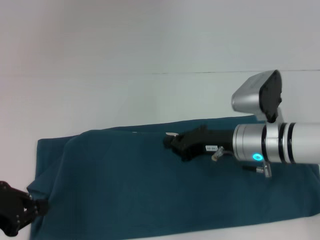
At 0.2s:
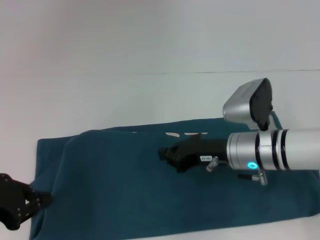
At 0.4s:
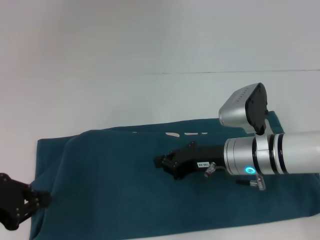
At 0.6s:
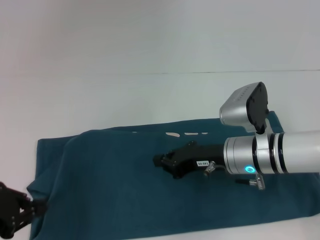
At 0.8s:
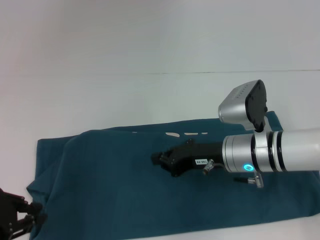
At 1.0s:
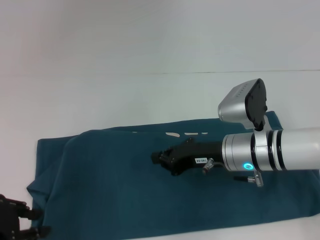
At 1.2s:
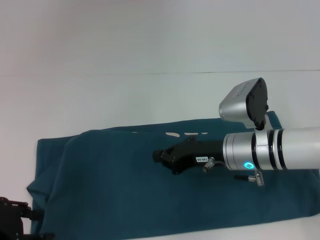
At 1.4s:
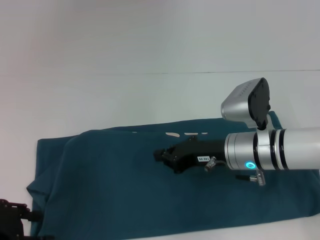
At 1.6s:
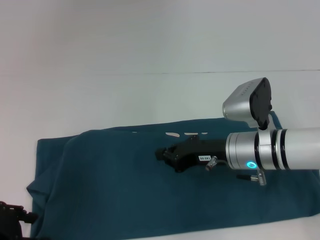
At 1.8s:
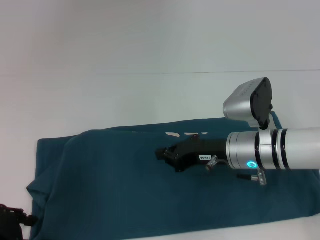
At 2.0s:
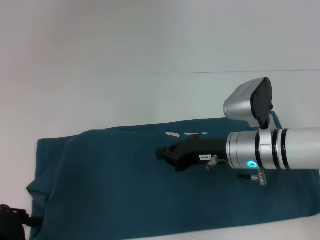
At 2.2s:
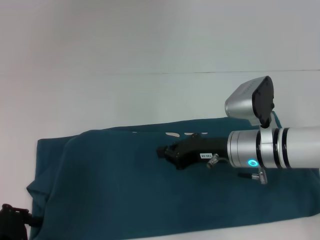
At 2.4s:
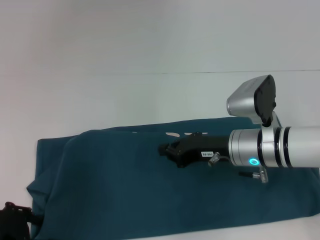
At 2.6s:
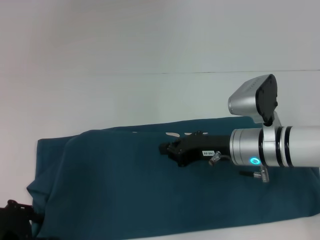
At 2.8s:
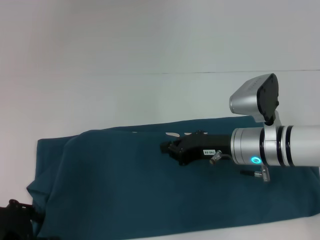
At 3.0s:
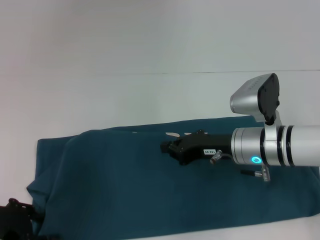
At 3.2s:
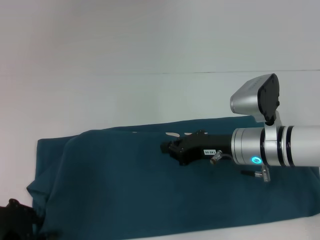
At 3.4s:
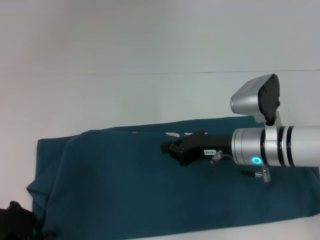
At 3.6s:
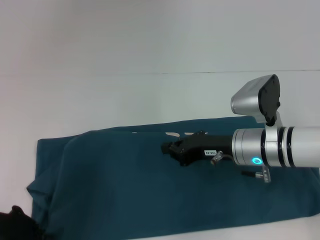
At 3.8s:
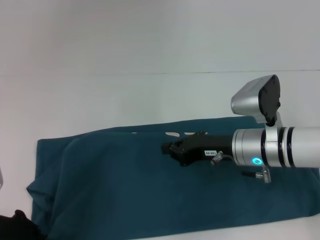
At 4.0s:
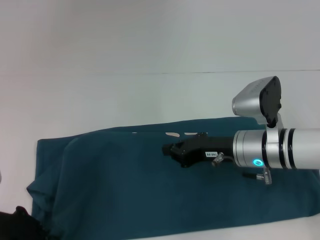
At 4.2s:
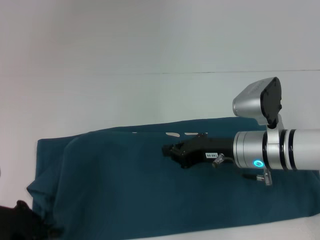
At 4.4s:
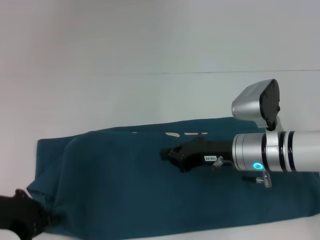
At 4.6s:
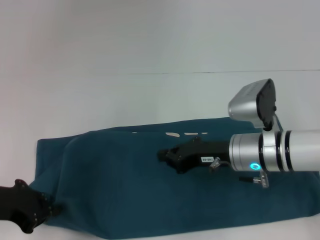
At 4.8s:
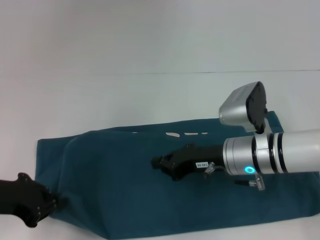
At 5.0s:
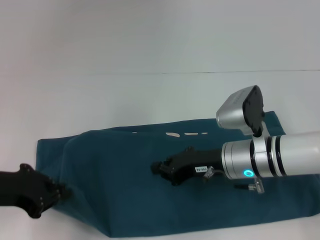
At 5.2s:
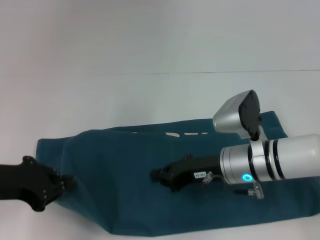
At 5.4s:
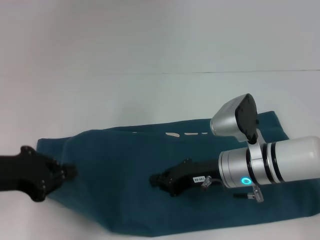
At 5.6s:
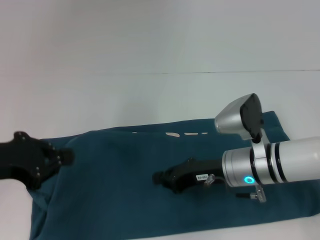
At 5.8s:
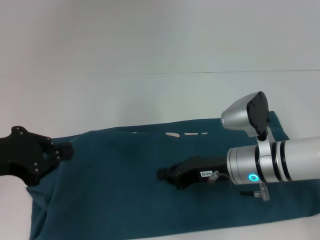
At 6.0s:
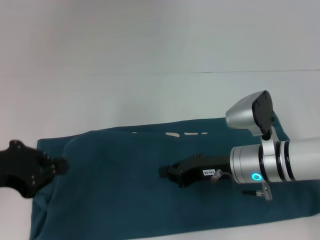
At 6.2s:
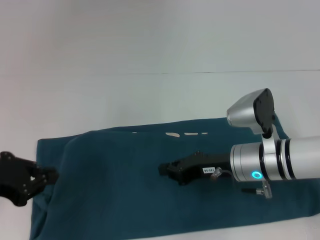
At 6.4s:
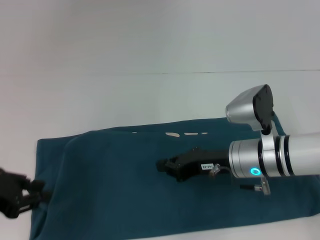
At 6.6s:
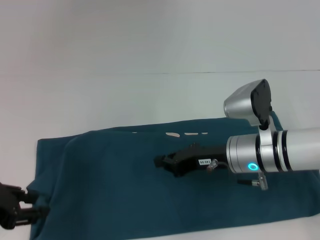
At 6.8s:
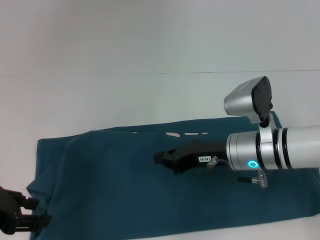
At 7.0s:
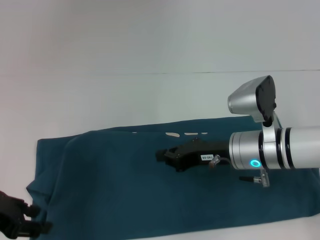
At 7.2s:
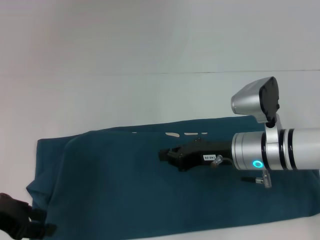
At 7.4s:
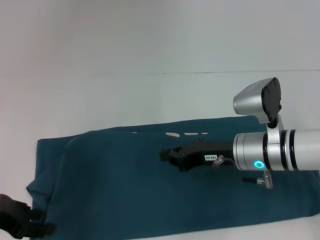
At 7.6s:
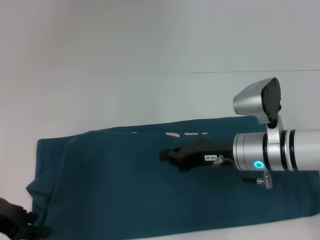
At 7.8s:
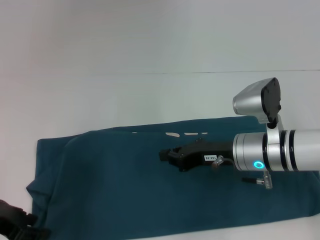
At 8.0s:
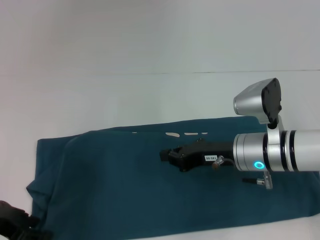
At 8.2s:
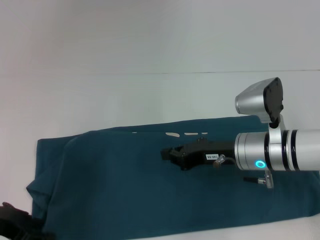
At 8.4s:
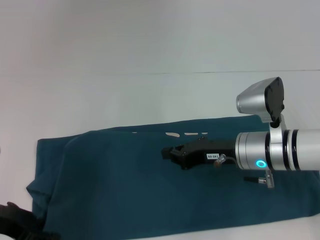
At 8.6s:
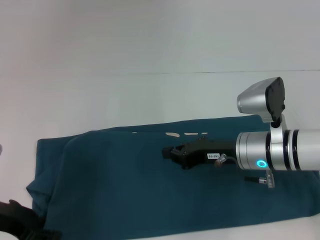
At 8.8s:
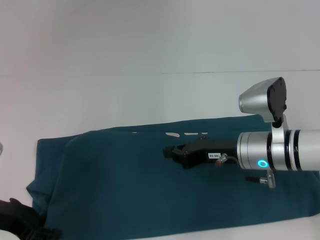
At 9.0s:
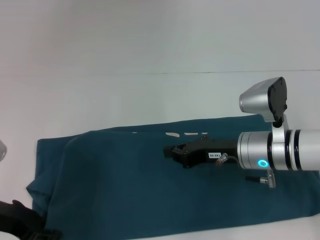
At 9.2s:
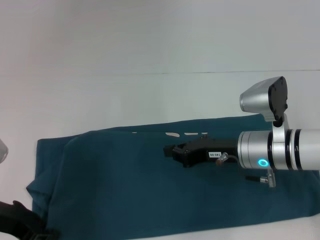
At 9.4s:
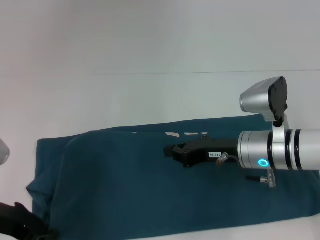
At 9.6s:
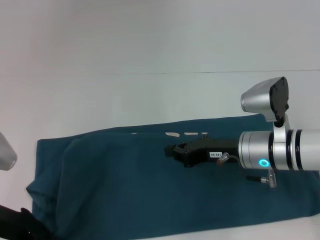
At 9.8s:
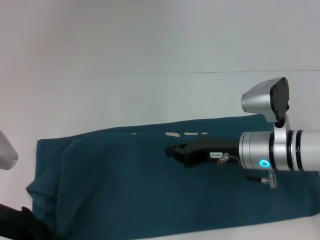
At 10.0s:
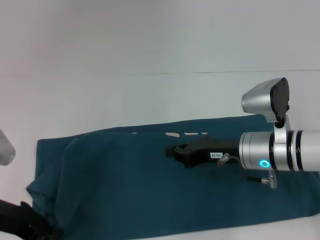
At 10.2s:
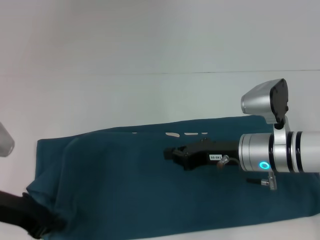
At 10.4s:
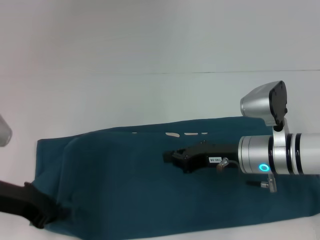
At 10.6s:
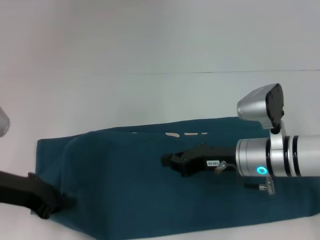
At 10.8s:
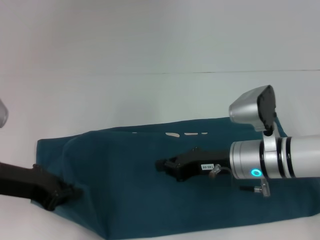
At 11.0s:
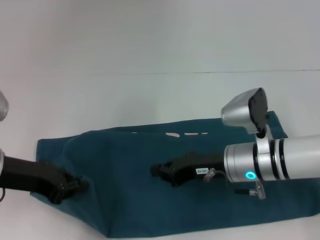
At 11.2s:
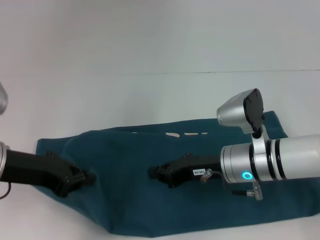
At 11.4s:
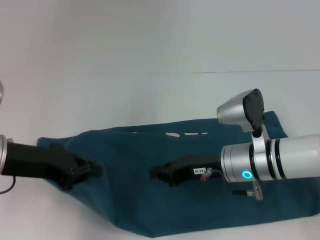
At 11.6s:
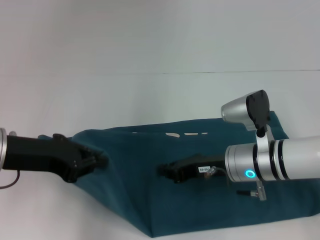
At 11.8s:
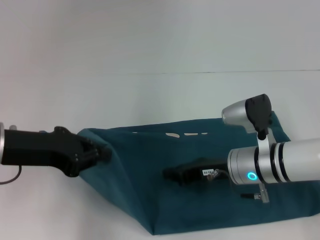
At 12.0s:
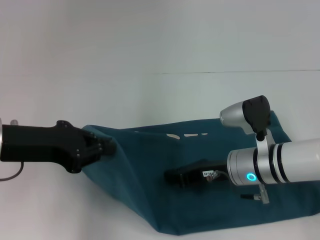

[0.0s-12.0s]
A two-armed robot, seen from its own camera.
0.0s to 1.6s: The left gripper opens its fingers.
1.6s to 3.0s: There are only small adjustments of the grippers.
3.0s to 4.4s: The left gripper closes up.
4.4s to 6.0s: The left gripper goes roughly 5 cm upward.
6.0s to 7.6s: The left gripper travels downward by roughly 5 cm, and opens its fingers.
7.6s to 9.0s: The grippers move only a little.
9.0s to 10.4s: The left gripper closes its fingers.
10.4s to 12.0s: The left gripper moves upward, roughly 5 cm.

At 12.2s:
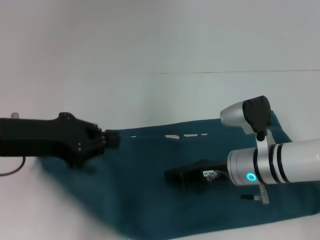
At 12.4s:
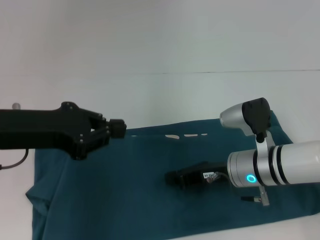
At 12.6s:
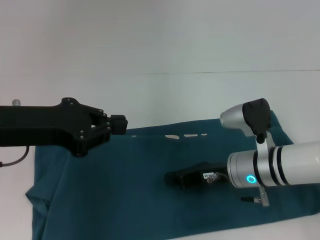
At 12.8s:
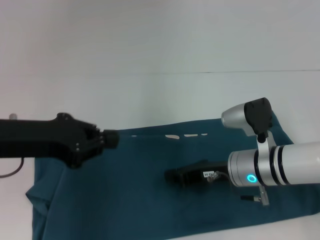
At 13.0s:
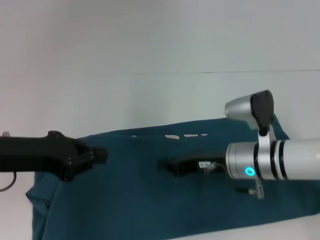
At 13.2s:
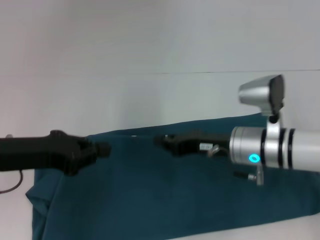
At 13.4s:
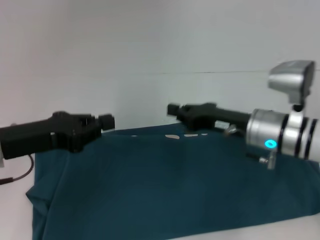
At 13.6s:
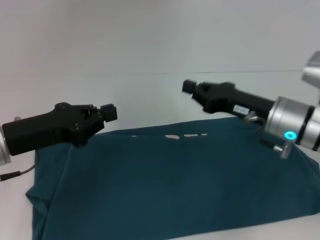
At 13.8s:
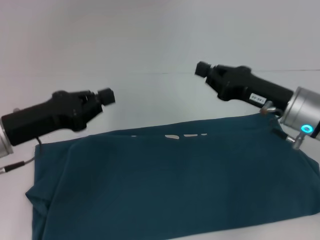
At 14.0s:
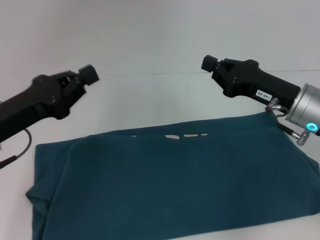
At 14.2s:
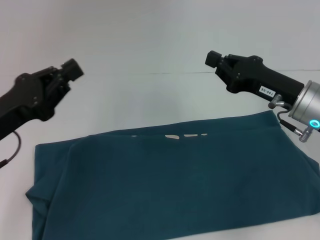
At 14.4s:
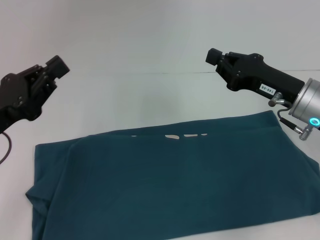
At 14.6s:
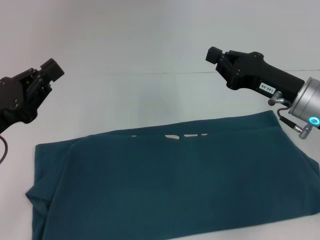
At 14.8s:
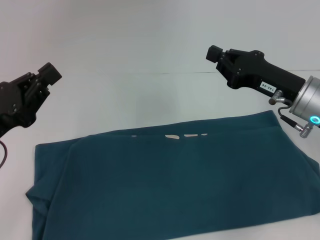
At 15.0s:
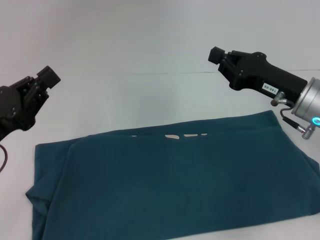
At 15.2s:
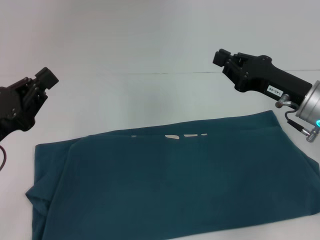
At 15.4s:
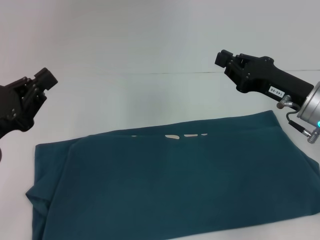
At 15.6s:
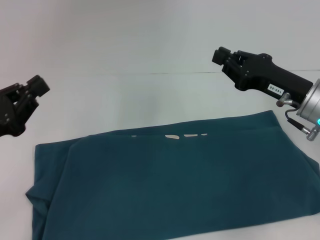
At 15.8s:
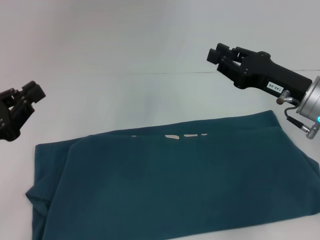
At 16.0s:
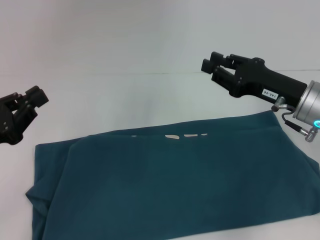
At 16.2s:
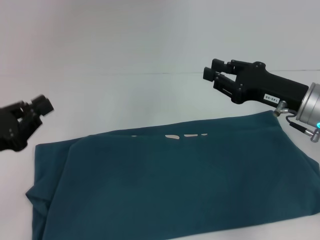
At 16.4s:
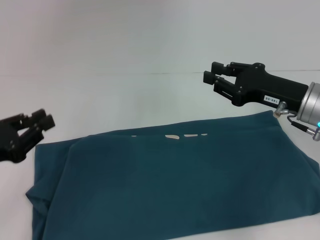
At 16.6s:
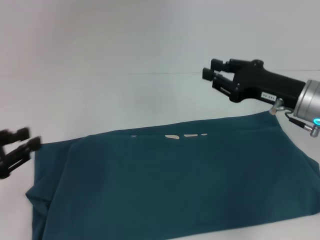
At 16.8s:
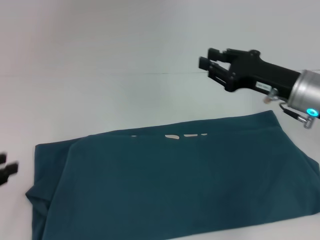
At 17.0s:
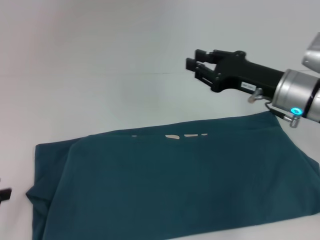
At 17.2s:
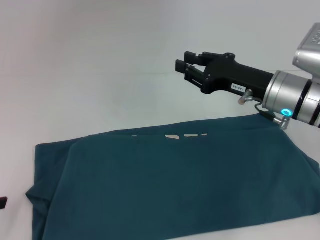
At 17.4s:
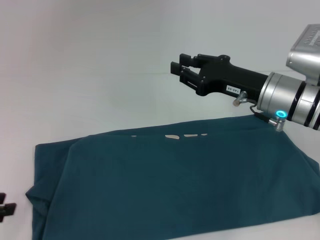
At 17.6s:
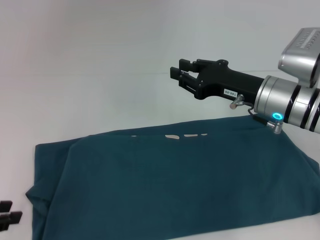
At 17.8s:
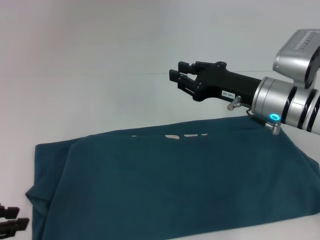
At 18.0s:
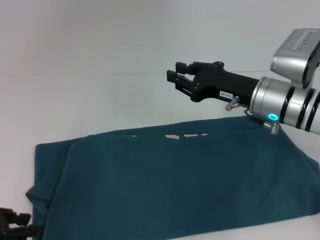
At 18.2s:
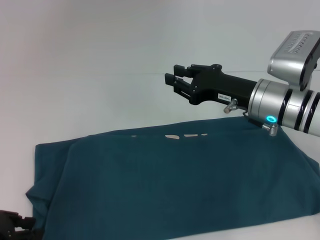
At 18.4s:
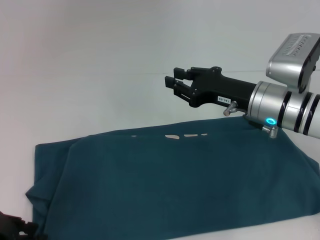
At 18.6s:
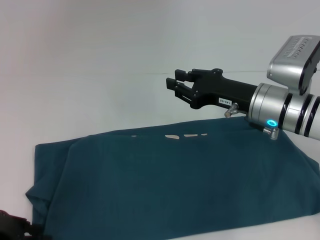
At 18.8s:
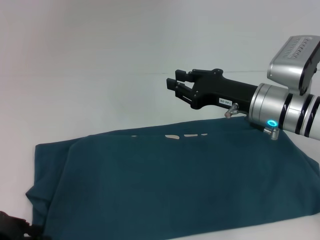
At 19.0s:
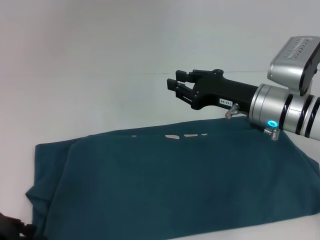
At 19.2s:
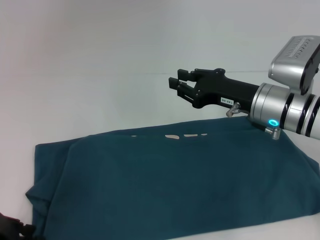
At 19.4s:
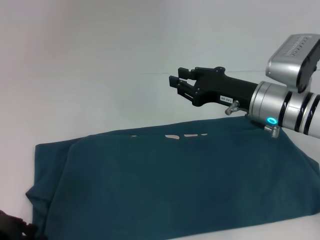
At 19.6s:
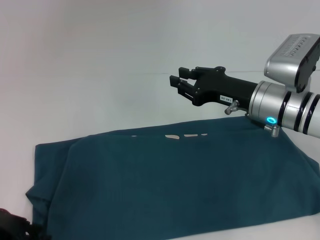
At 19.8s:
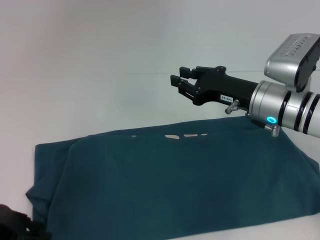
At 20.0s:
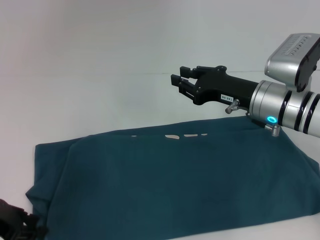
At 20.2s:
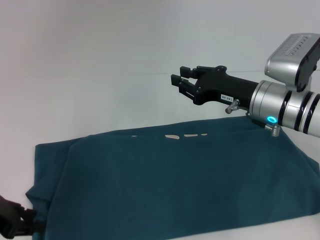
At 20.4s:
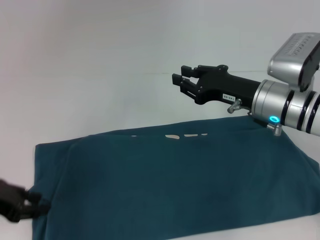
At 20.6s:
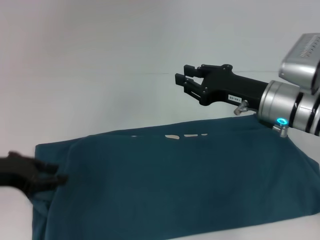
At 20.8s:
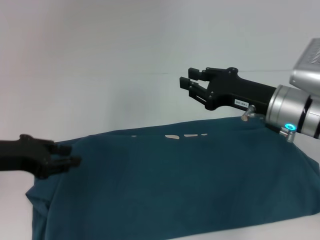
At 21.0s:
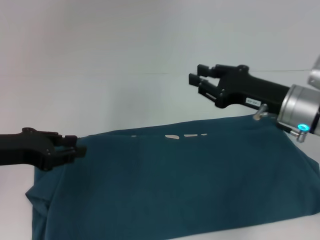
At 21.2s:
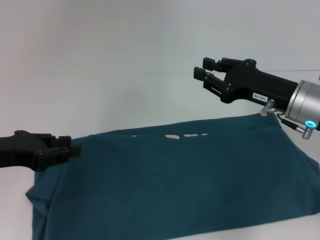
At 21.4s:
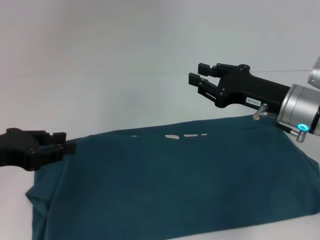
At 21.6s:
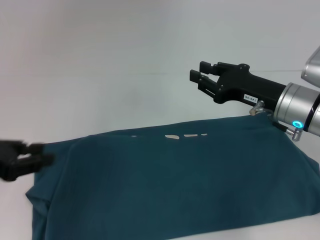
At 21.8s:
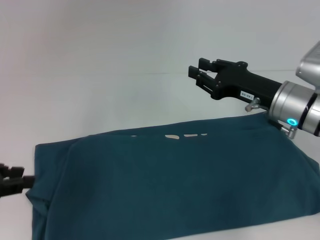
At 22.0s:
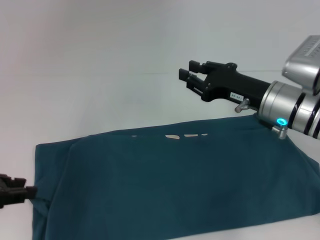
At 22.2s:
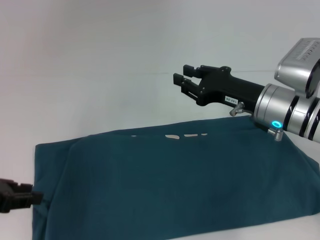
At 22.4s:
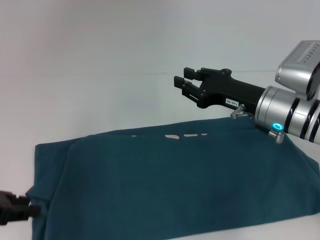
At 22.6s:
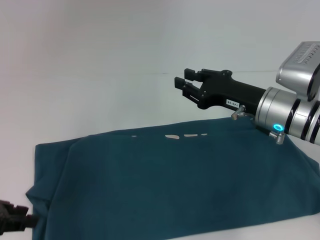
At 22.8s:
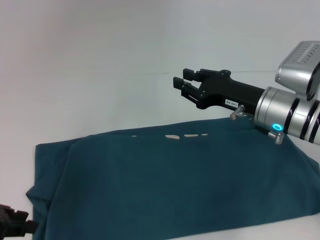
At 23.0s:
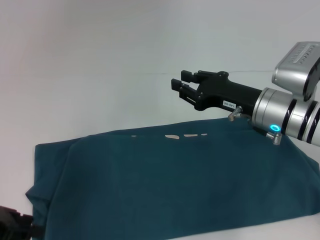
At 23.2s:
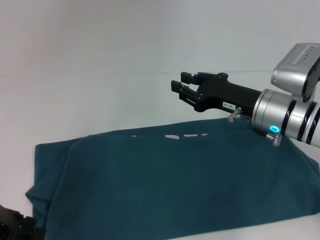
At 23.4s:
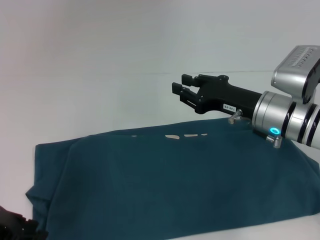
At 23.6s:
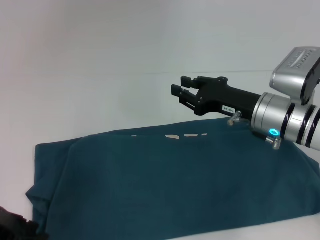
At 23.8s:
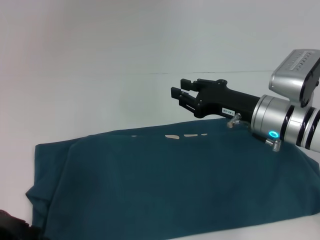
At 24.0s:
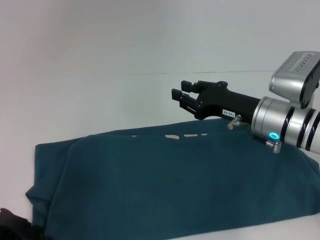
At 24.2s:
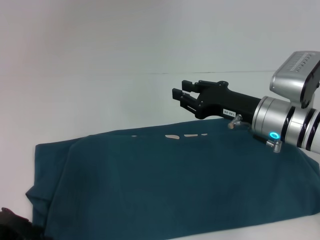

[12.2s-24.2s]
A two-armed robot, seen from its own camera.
12.2s to 13.8s: The right gripper is displaced upward and to the right by roughly 10 cm; the left gripper goes about 5 cm downward.
13.8s to 15.2s: The left gripper moves approximately 5 cm.
15.2s to 16.6s: The left gripper goes roughly 5 cm to the left.
16.6s to 18.2s: The right gripper heads to the left, covering about 5 cm.
18.2s to 19.8s: The grippers move only a little.
19.8s to 21.2s: The right gripper moves about 5 cm; the left gripper travels upward by some 5 cm.
22.6s to 24.2s: The left gripper shifts by approximately 5 cm.
